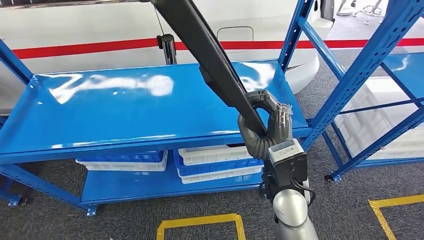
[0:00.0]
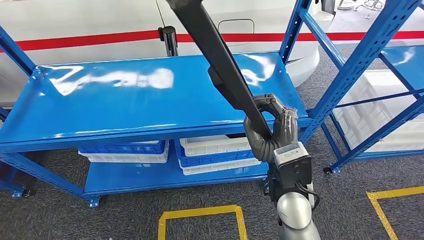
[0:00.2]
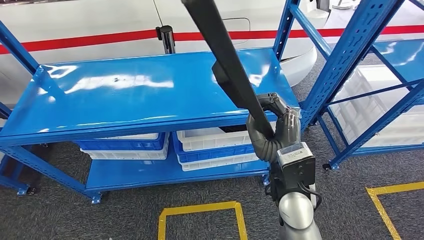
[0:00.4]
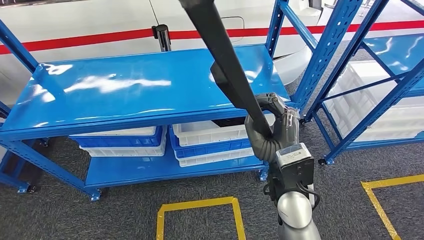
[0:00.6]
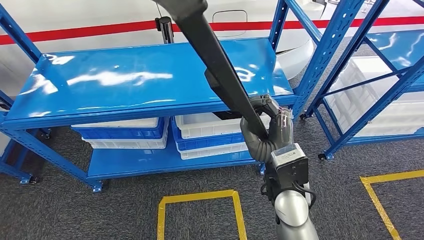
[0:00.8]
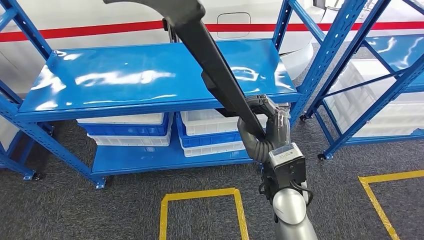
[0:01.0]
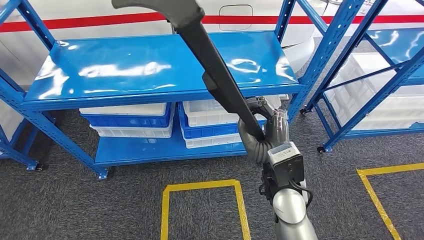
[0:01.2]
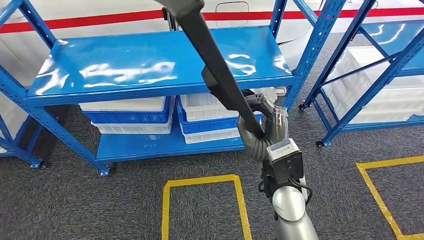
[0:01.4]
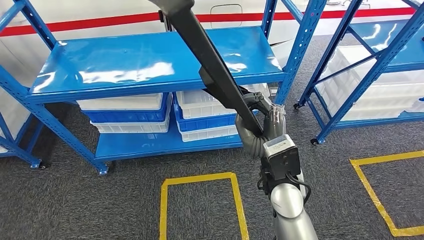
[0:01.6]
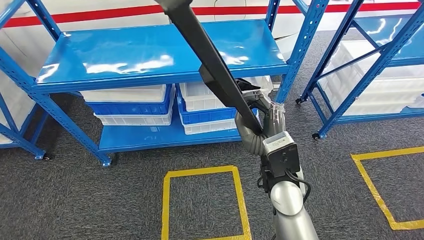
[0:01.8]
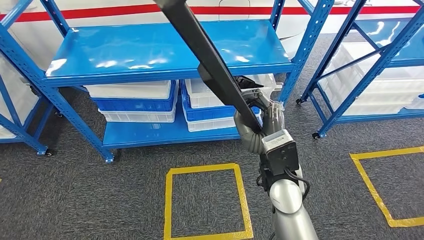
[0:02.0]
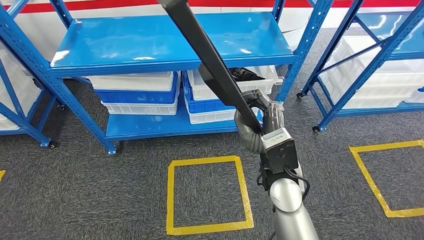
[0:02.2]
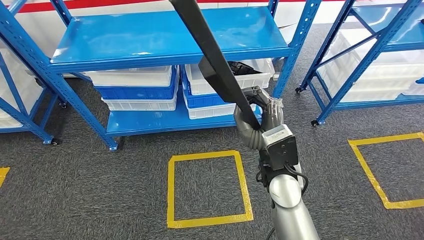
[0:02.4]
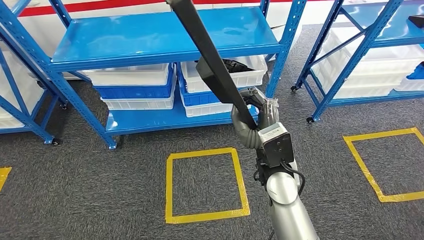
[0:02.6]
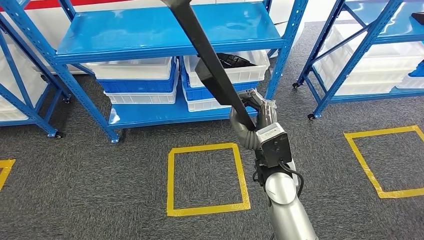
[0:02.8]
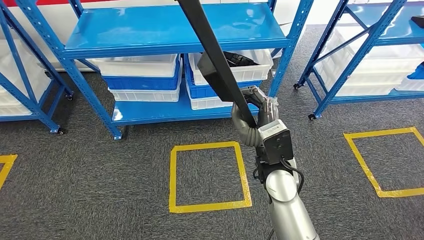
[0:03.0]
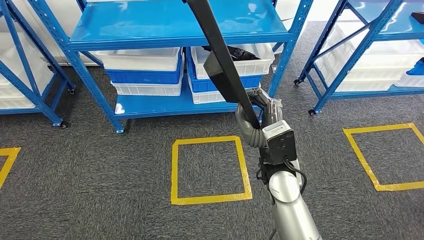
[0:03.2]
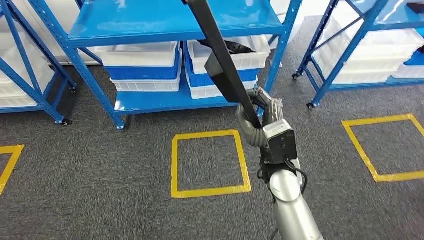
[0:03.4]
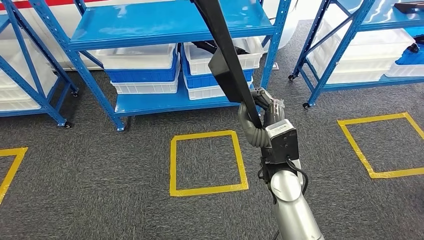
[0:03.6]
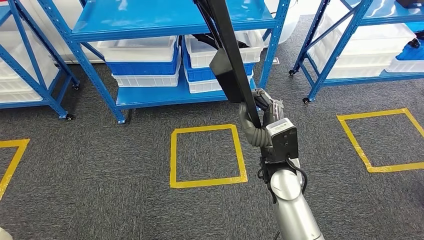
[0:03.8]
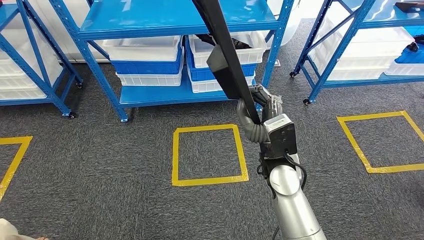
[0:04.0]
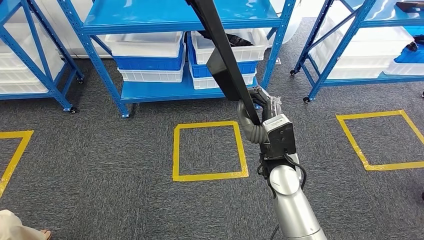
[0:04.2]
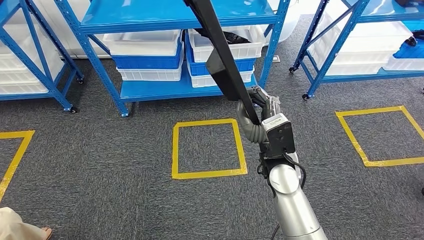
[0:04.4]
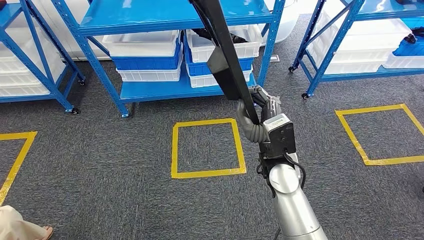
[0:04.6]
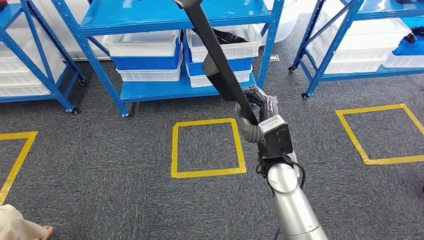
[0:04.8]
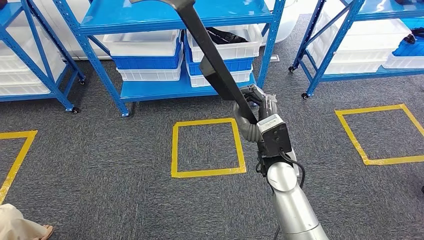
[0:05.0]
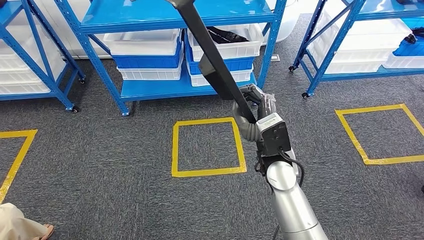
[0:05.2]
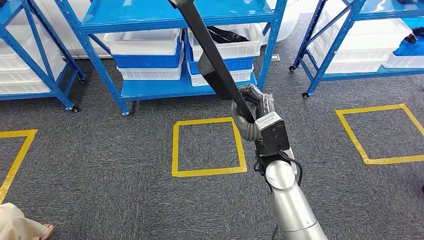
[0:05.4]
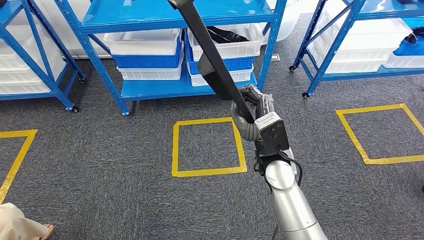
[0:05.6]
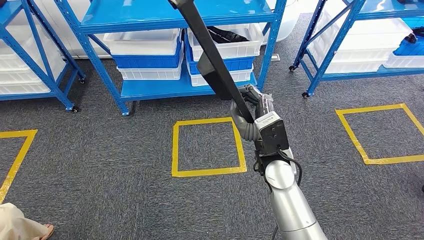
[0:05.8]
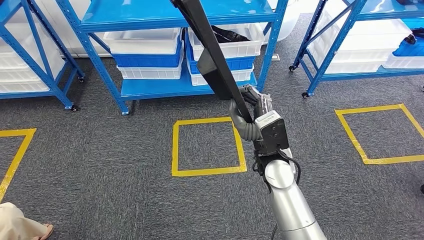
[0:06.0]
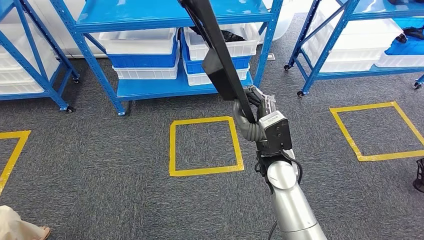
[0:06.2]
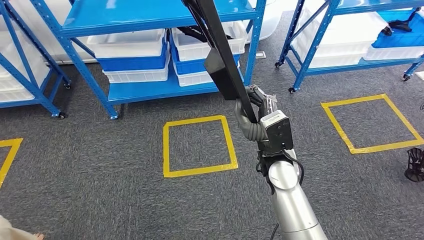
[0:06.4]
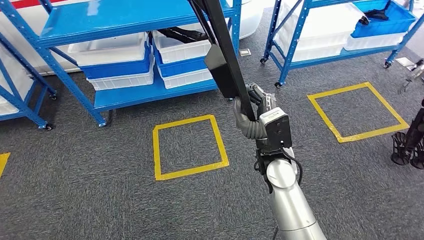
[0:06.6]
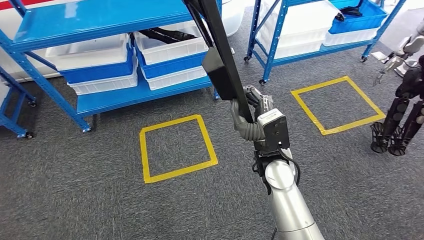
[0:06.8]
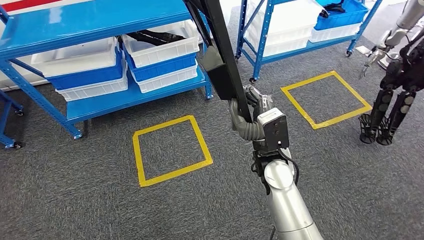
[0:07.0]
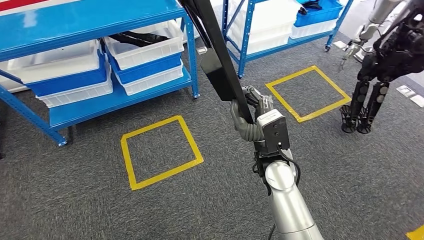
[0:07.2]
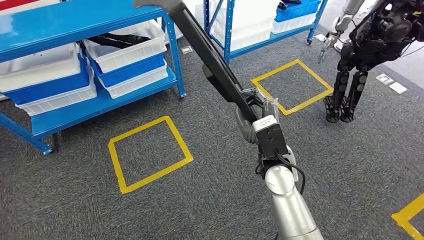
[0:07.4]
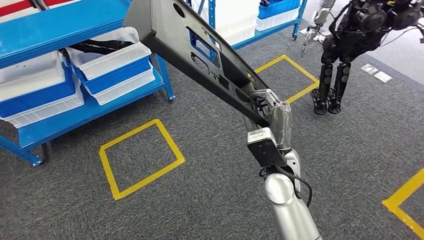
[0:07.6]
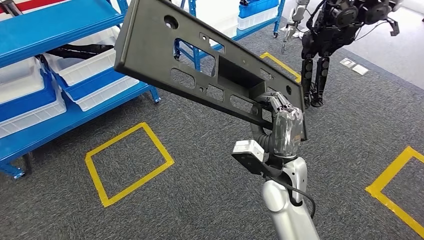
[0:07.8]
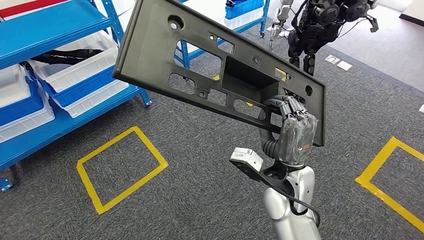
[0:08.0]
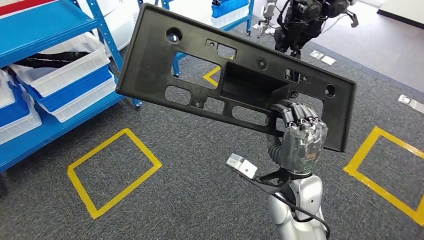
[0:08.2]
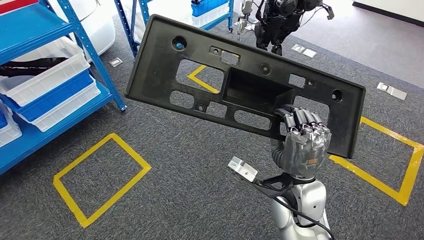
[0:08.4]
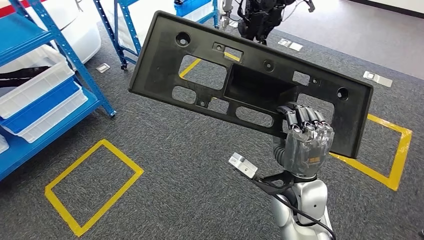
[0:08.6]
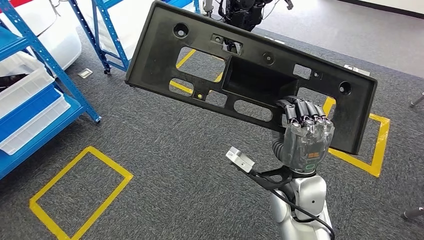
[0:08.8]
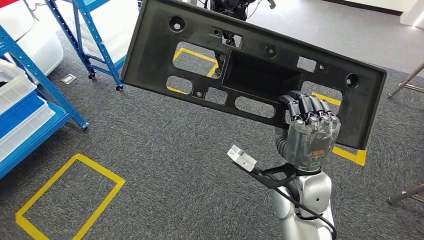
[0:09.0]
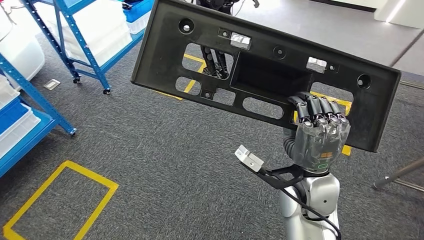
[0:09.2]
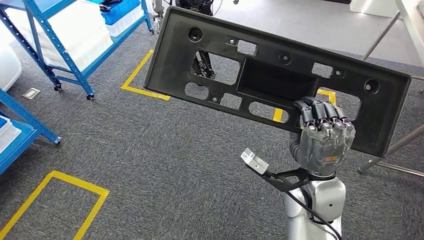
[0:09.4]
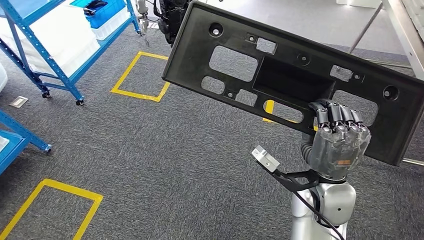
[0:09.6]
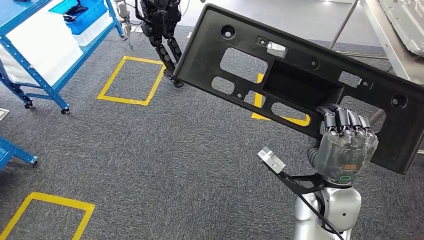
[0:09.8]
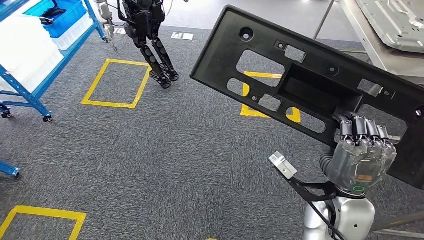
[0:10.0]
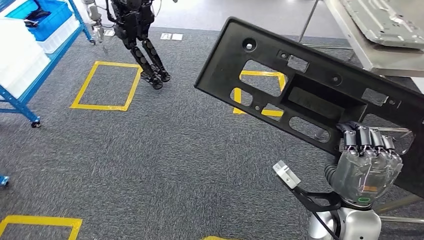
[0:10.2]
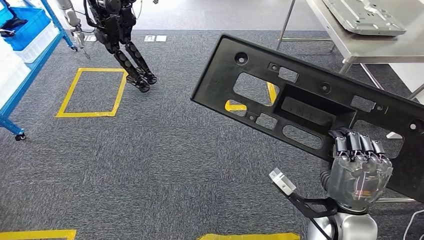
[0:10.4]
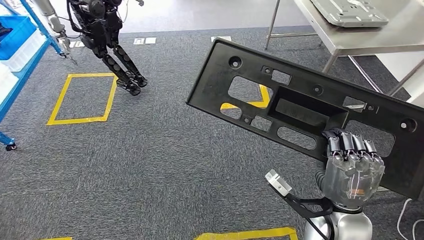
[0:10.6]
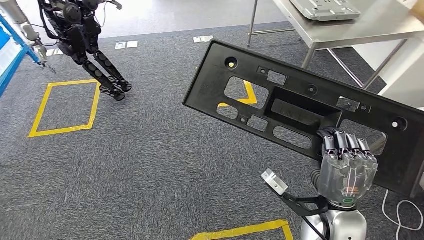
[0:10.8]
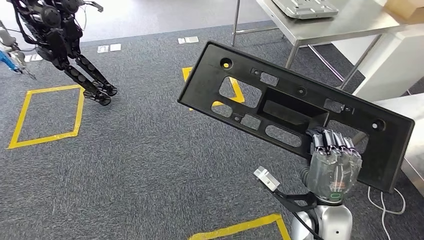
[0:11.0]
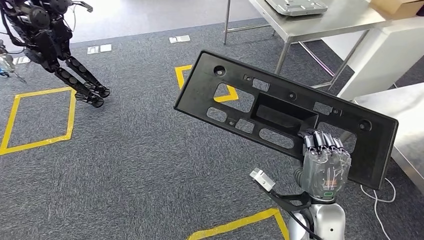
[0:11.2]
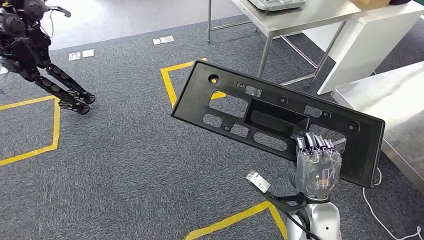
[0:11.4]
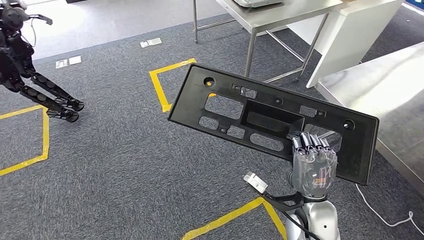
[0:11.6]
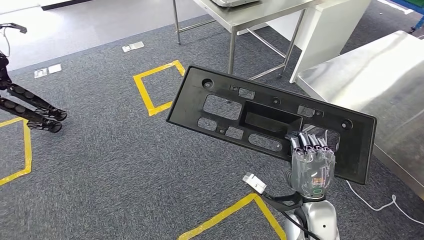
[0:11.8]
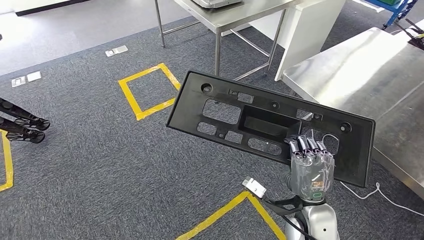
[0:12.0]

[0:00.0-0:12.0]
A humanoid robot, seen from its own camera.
0:04.4 to 0:06.0: Both hands stay put.

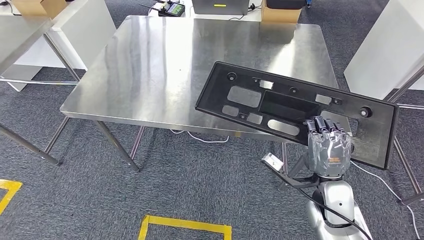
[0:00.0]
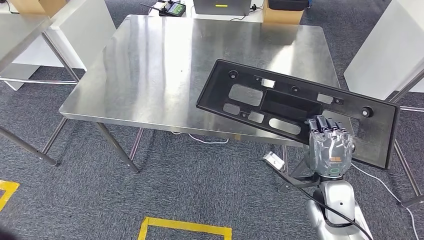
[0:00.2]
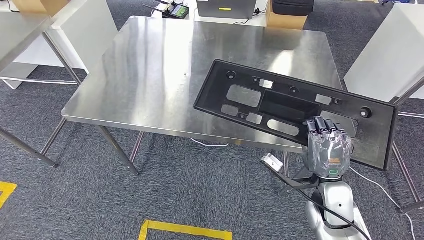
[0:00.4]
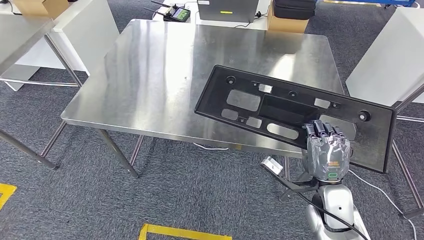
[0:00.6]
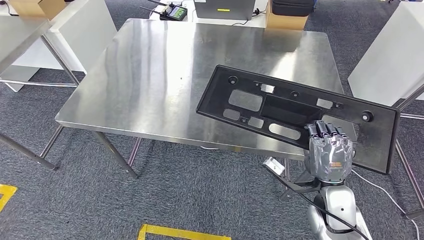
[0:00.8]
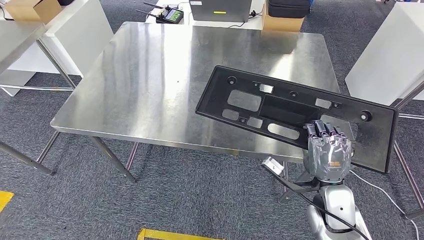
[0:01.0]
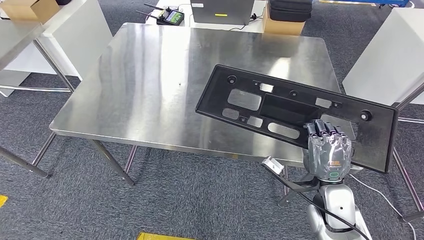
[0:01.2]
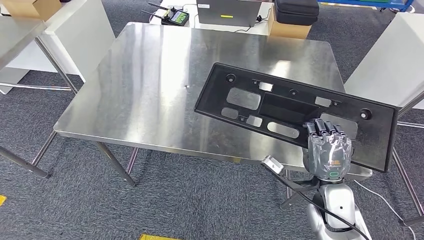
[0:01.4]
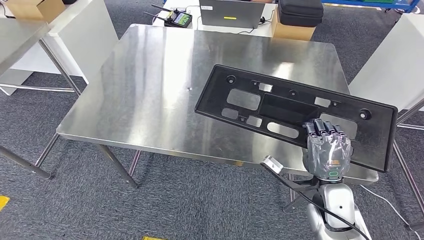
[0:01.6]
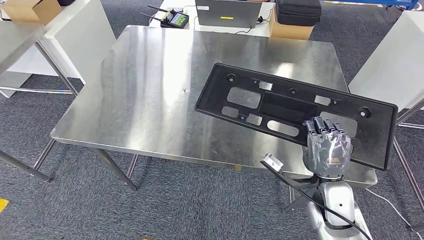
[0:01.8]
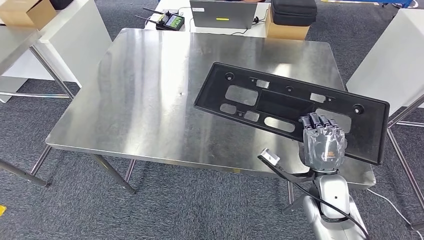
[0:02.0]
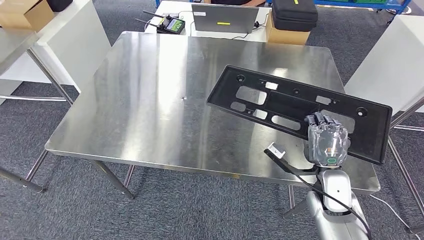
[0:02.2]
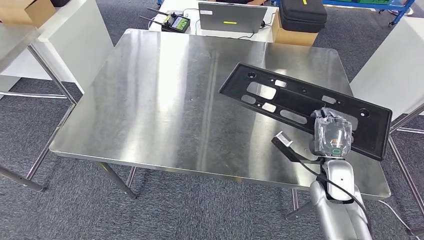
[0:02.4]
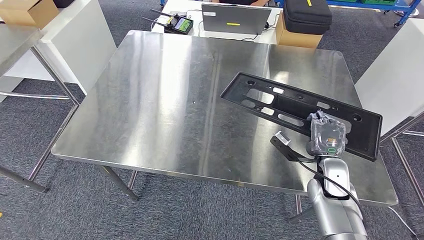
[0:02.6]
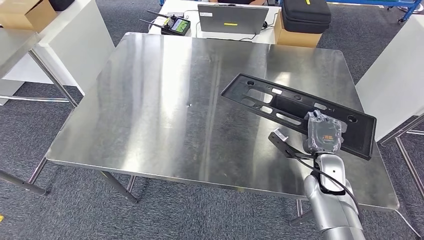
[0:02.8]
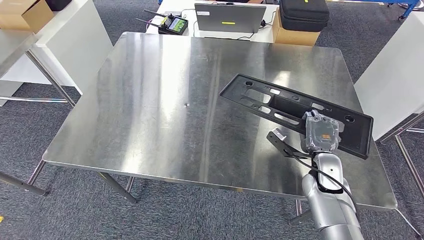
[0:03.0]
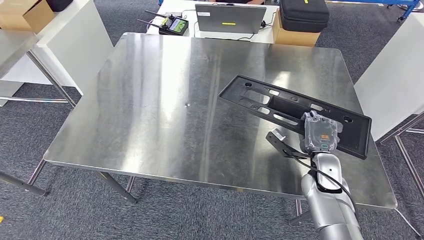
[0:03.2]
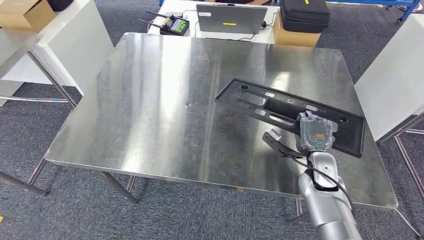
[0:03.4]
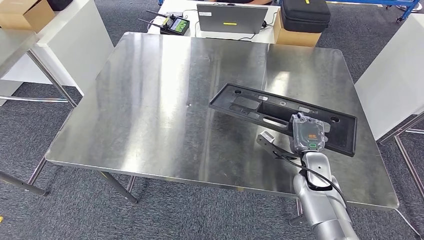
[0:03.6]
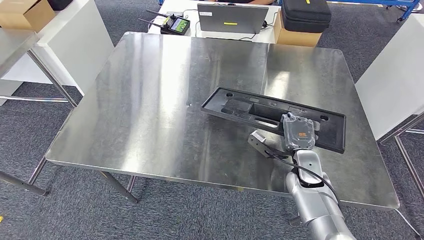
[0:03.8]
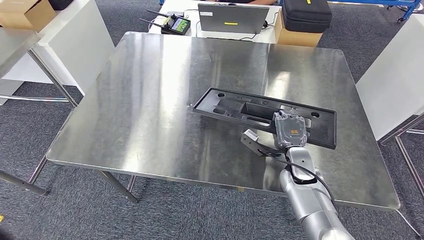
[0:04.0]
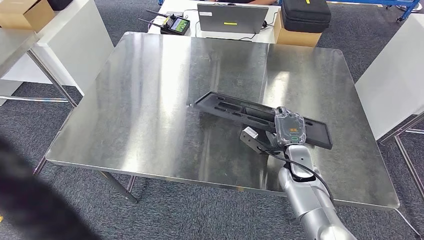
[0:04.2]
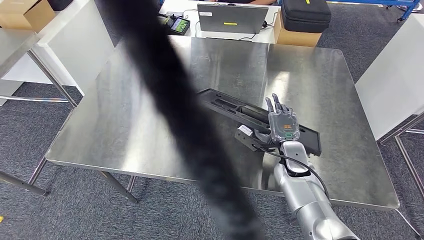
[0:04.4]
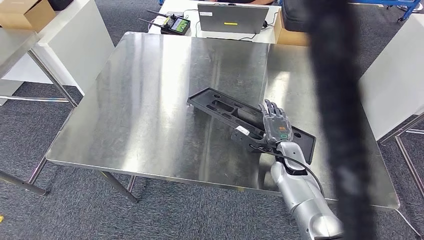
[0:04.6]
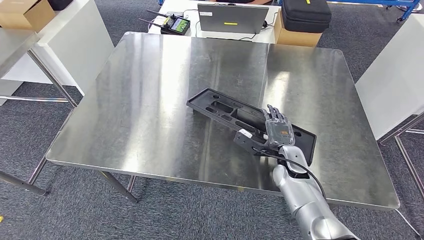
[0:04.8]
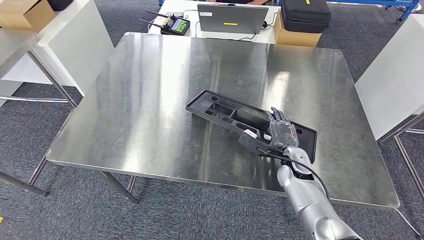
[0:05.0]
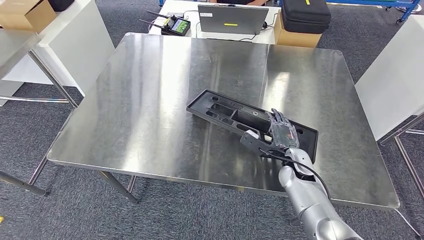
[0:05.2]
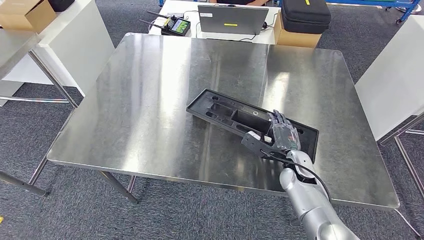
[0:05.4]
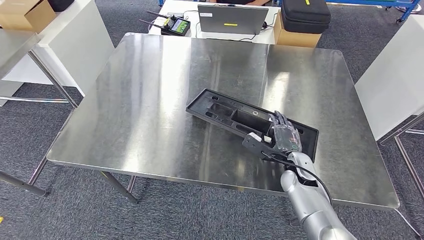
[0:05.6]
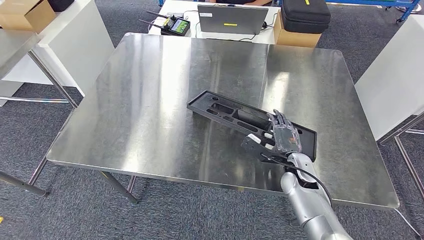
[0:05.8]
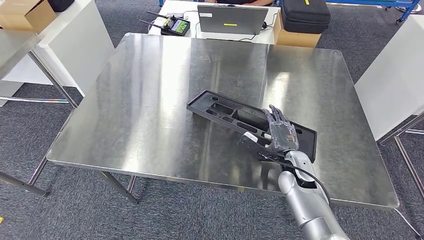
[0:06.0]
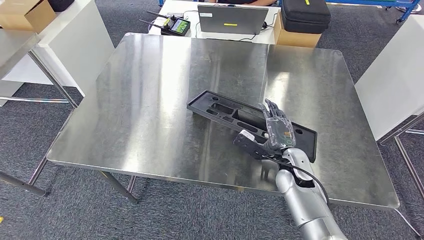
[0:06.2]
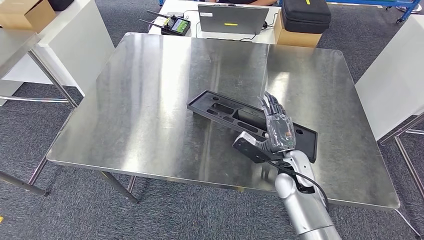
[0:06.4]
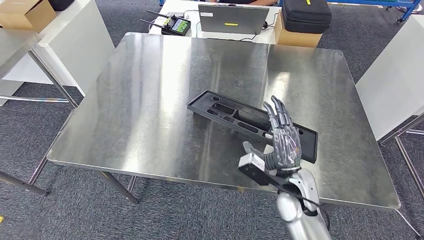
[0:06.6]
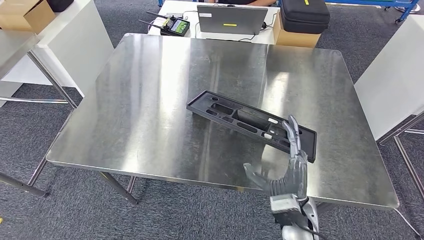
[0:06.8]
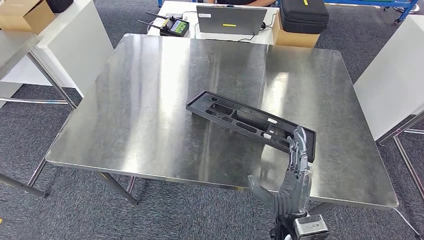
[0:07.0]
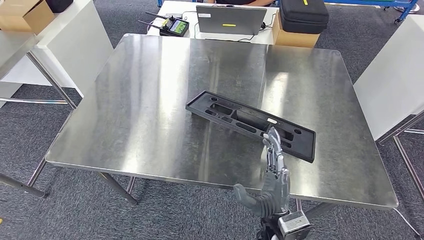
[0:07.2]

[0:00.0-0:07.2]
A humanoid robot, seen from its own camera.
0:05.8 to 0:07.2: The right hand shifts roughly 20 cm backward and to the left.
